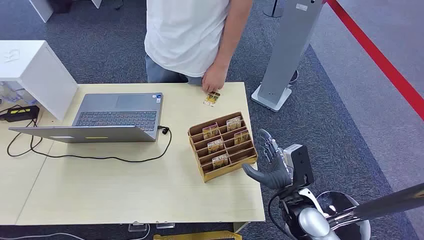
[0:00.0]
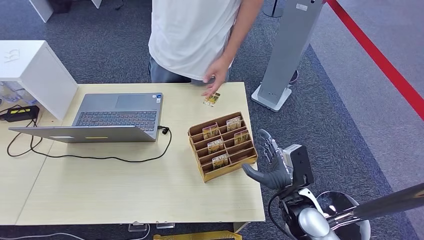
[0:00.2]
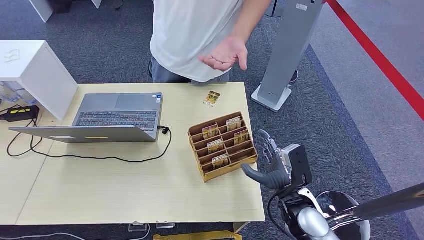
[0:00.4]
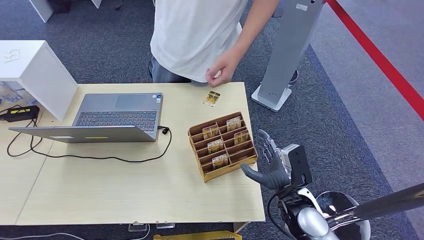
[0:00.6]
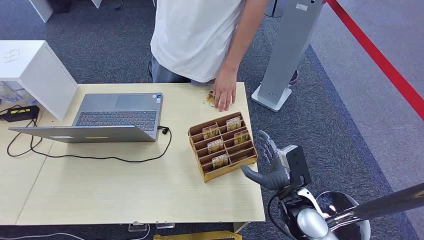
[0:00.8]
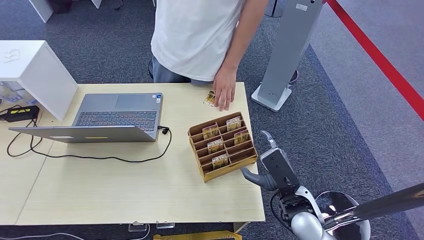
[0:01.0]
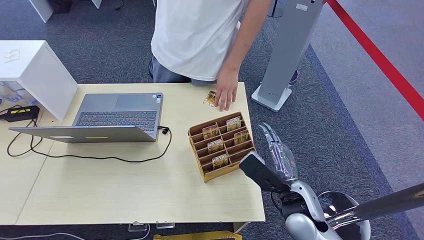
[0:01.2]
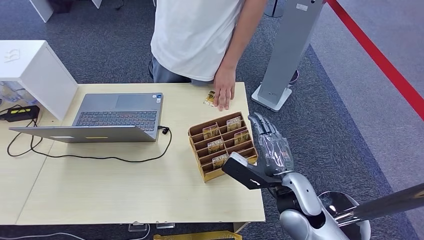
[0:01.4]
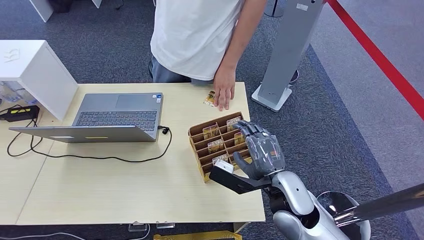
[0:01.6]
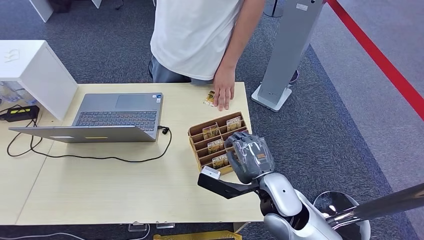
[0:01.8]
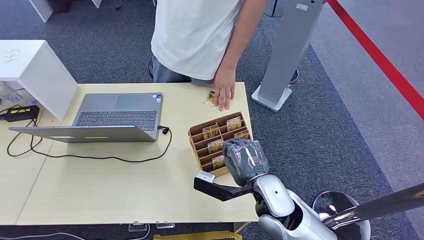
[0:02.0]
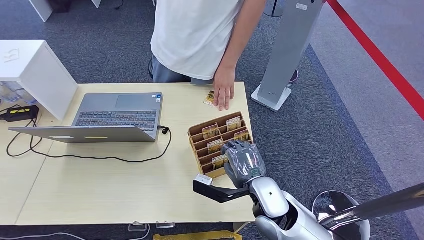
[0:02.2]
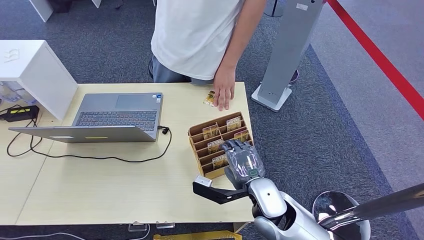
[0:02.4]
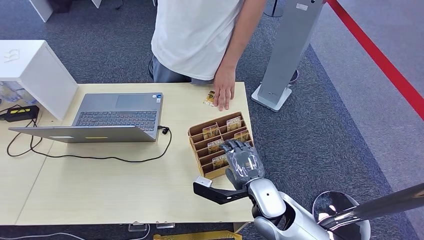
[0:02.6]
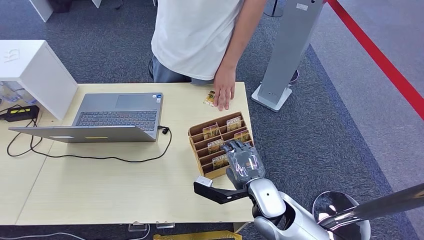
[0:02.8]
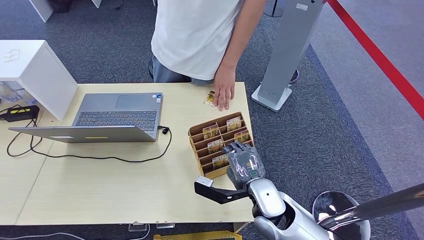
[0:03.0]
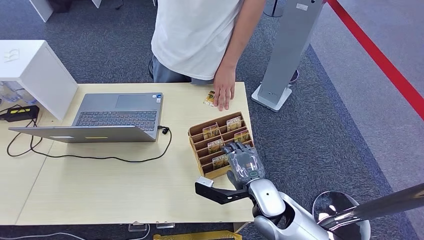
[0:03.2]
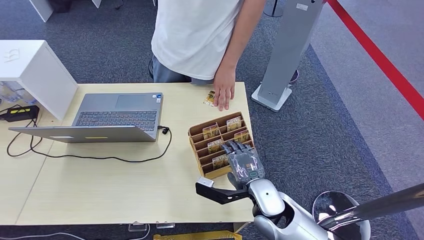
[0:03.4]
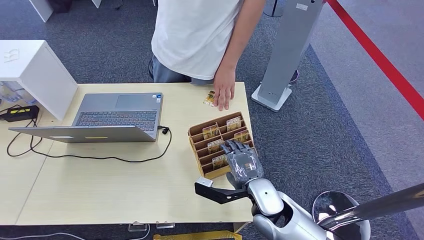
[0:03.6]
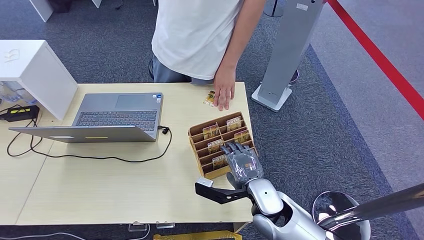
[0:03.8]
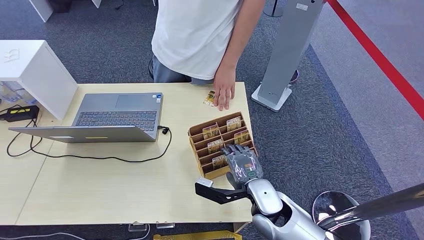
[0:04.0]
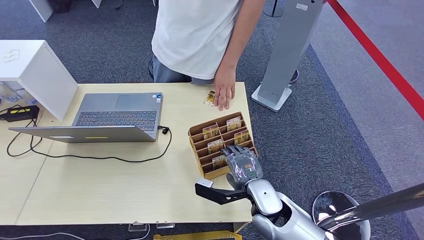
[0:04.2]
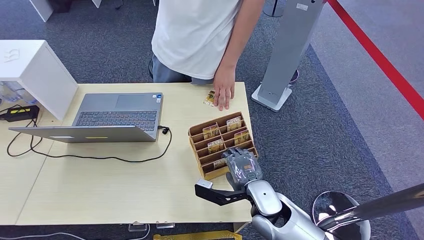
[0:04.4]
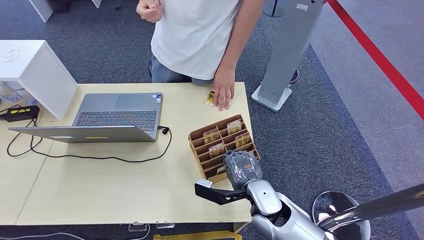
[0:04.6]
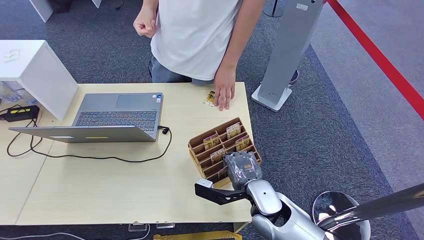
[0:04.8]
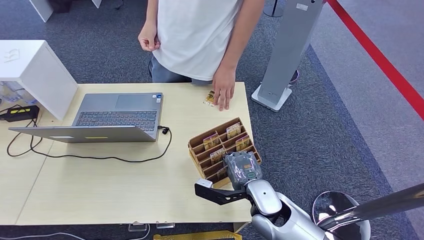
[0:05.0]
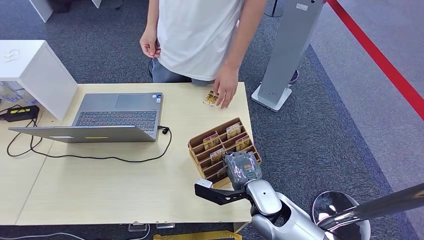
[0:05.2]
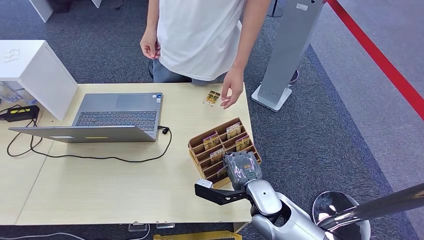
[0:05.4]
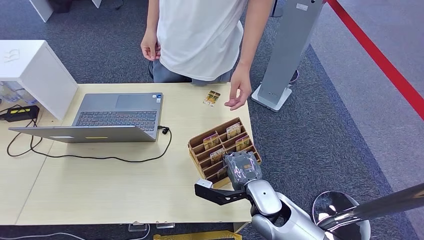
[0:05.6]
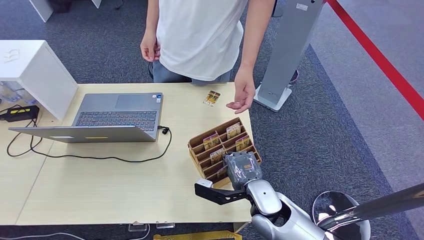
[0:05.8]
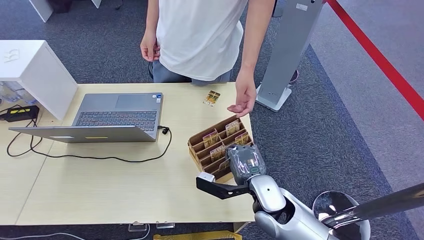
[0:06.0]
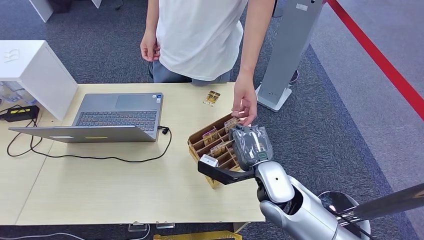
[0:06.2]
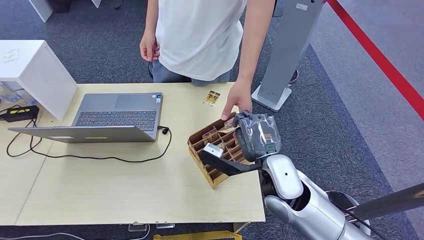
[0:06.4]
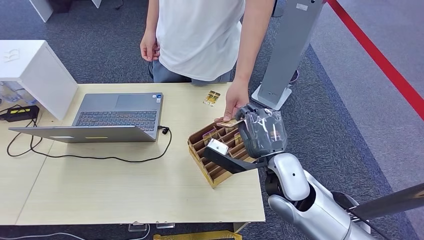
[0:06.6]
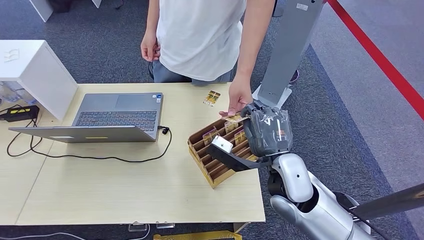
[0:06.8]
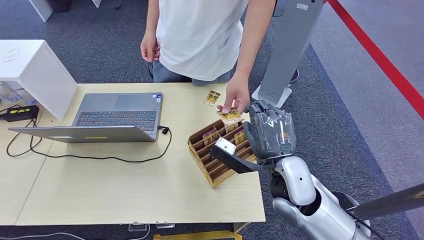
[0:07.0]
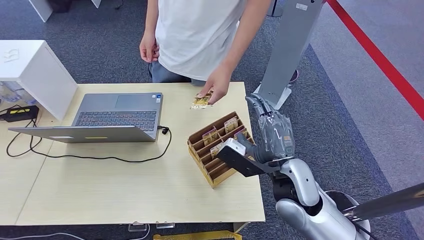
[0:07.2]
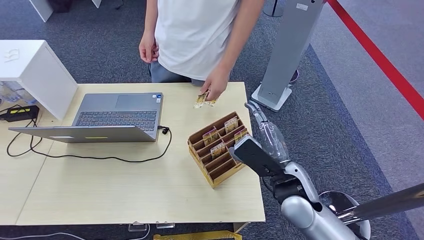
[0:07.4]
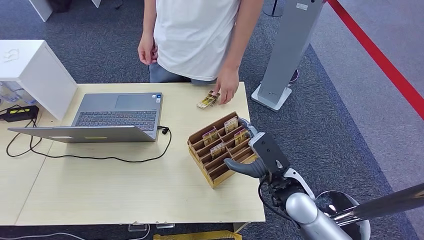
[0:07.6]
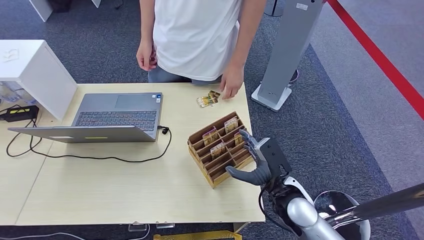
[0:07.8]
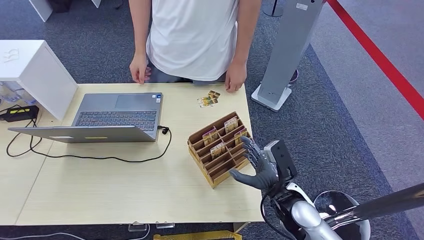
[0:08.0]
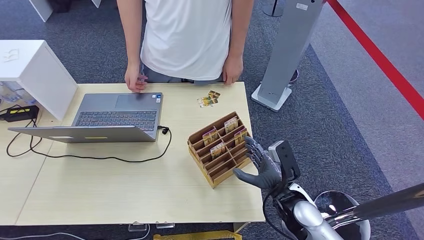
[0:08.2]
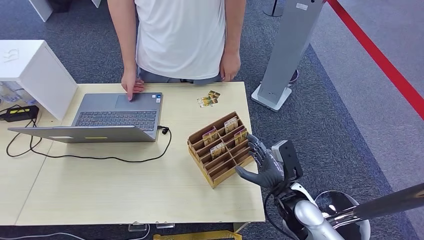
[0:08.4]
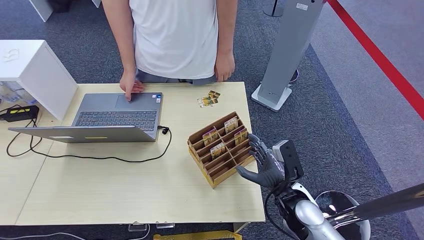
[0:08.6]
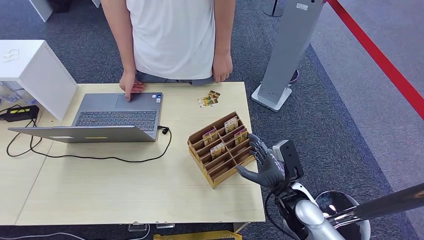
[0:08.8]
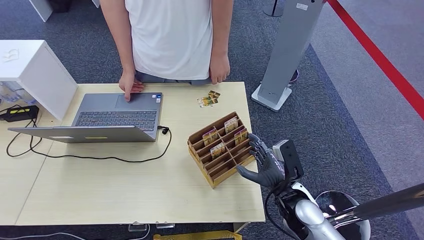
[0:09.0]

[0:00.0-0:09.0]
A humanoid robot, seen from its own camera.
Step, 0:00.0 to 0:06.2: Pick up the key card from the card box.
Step, 0:06.4 to 0:09.0: Hand the key card to the target.
0:01.6 to 0:03.0: The right hand ends up about 5 cm from where it was.
0:03.0 to 0:06.0: The hands make only small movements.
0:06.0 to 0:07.6: The right hand is displaced to the right by roughly 5 cm, and reaches roughly 10 cm upward, then returns.
0:07.6 to 0:09.0: The right hand shifts some 5 cm downward.
